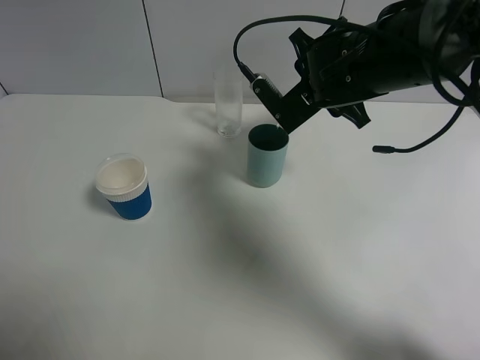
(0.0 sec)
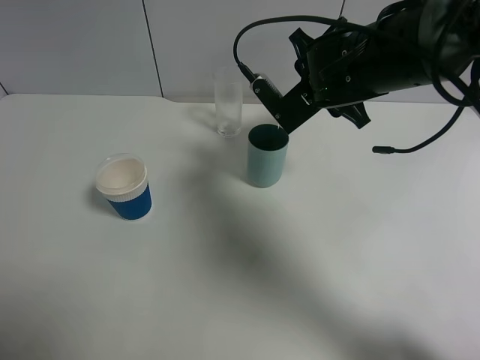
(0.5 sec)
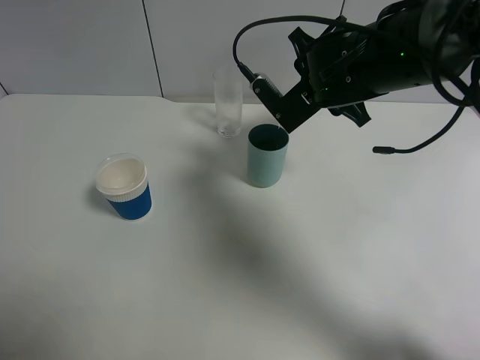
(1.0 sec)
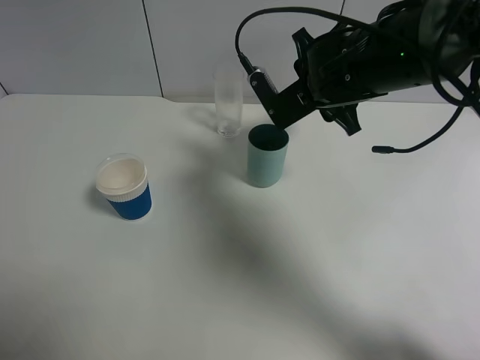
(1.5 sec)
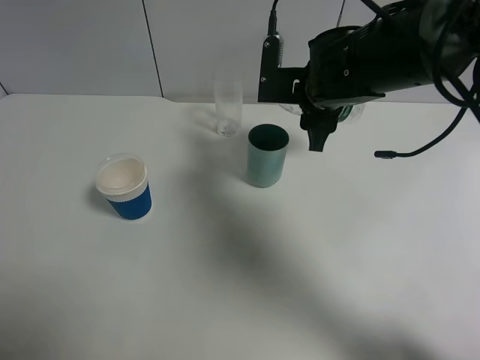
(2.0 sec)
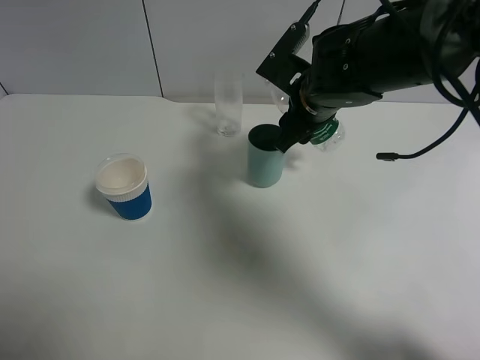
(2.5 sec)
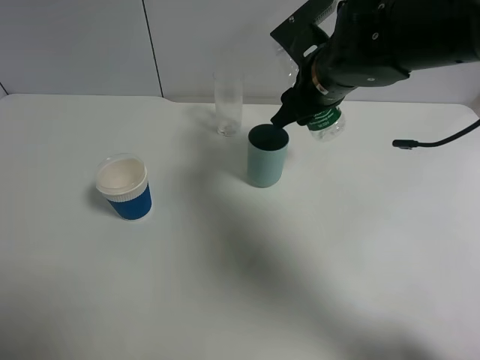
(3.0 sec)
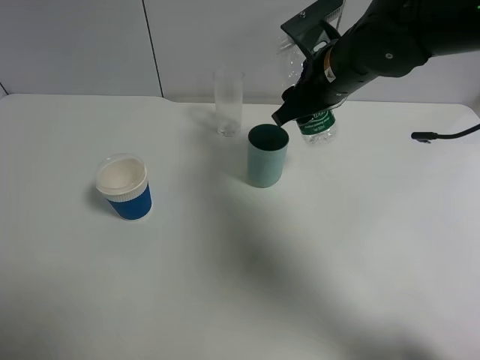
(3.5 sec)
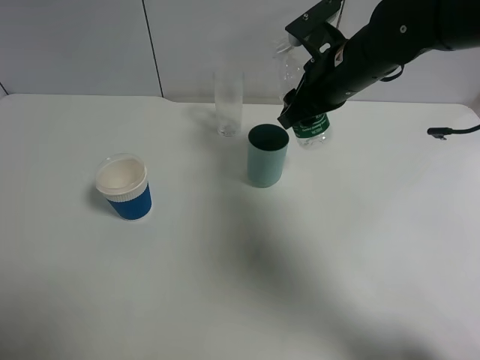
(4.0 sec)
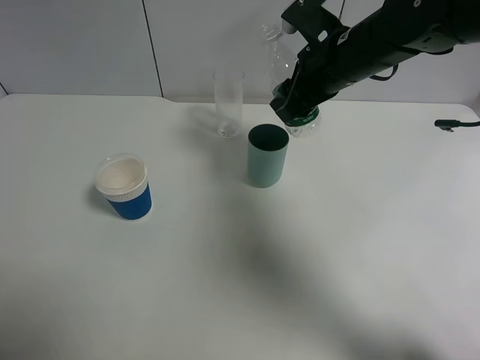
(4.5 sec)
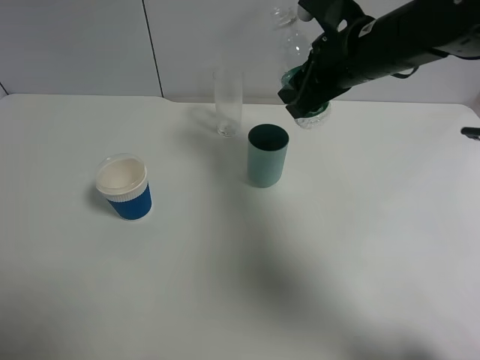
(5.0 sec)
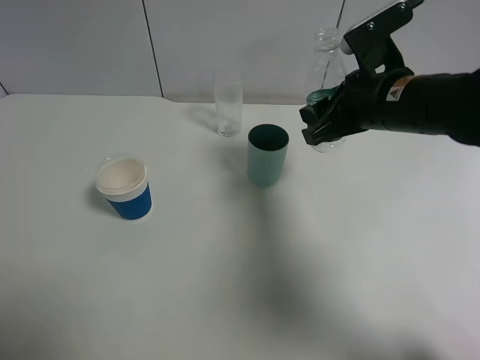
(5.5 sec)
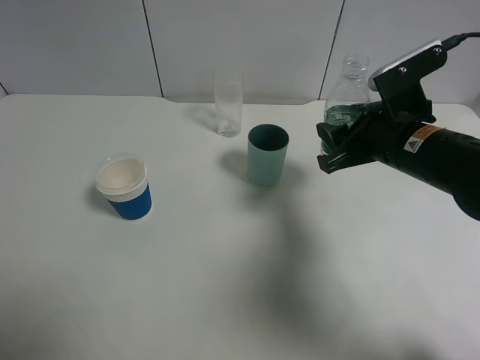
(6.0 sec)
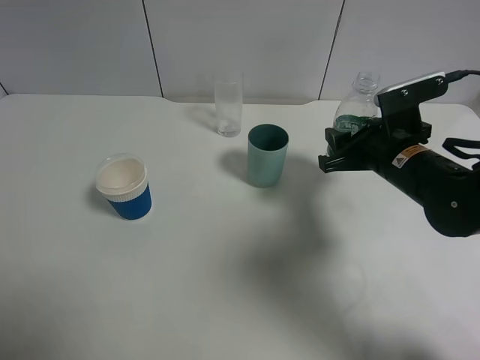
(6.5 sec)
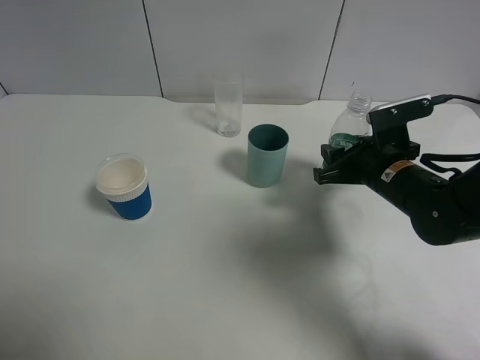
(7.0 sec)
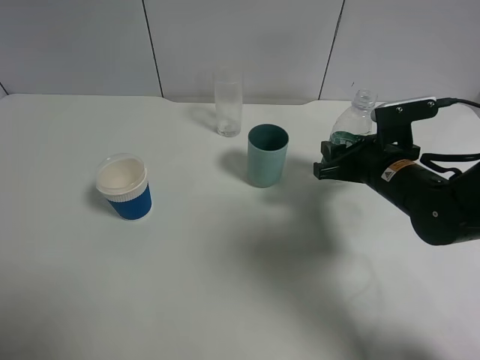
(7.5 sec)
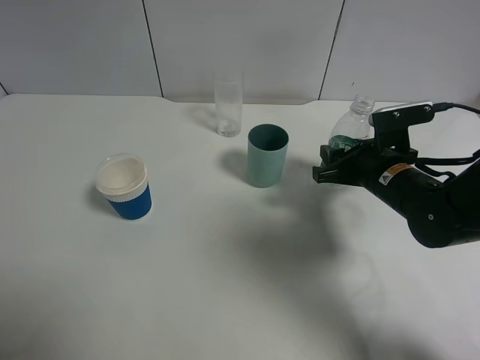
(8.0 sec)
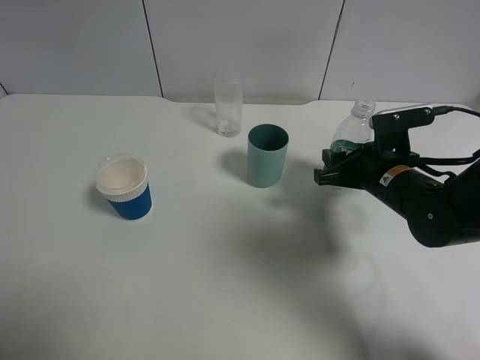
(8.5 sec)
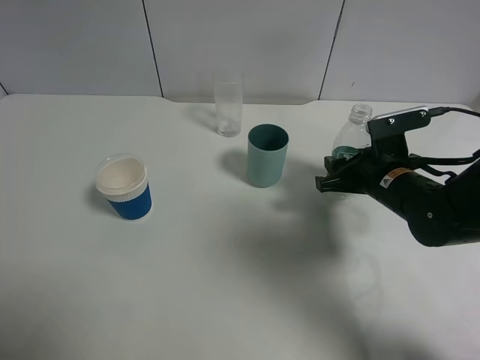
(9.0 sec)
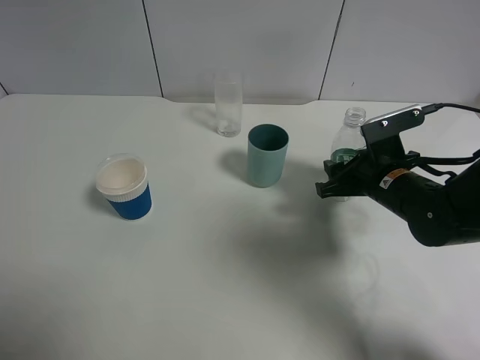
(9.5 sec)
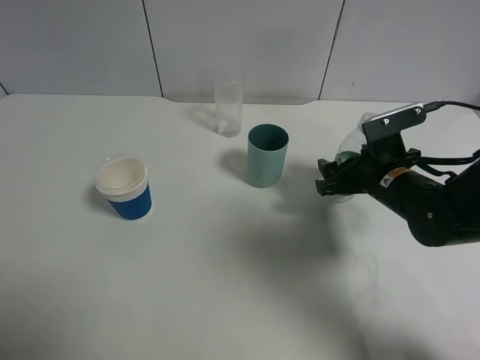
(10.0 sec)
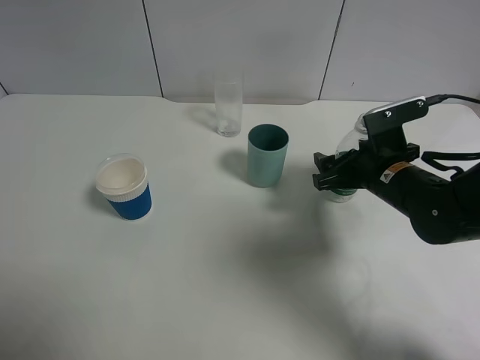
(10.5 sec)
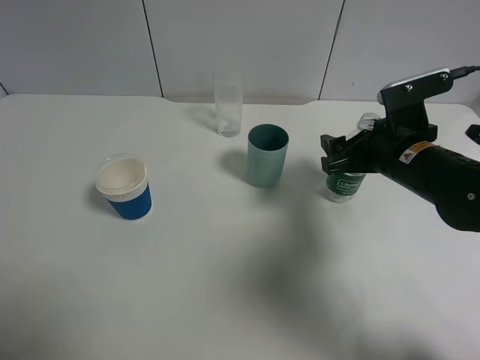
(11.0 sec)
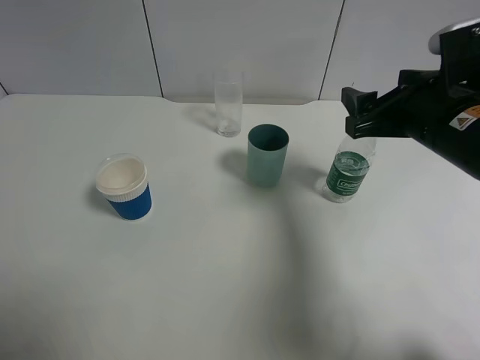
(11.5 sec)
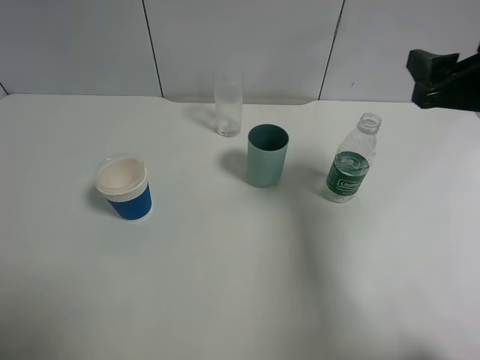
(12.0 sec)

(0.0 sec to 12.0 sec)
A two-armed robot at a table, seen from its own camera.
Task of the whole recording: use a gripper to hold the bottle of the drink and pour it into a random cup.
Step, 0.0 sec - 2.0 sec: Pour the mineral water into the cyan cup with the right gripper.
Step, 2.5 sec - 11.0 sec: Place the mineral water bottle on the table with the right gripper.
4.0 sec - 6.0 sec: The right gripper is displaced backward and to the right by some 10 cm.
6.0 sec - 8.0 sec: The right gripper travels downward by roughly 5 cm.
8.0 sec - 10.0 sec: The right gripper opens its fingers.
10.0 sec - 12.0 sec: The right gripper heads upward, covering some 15 cm.

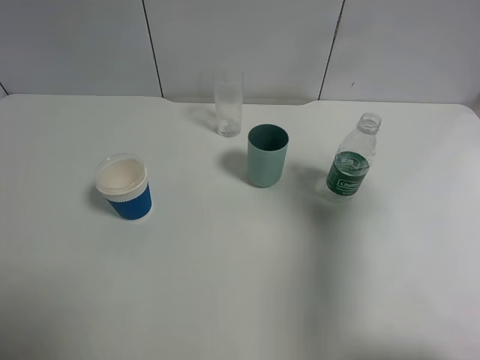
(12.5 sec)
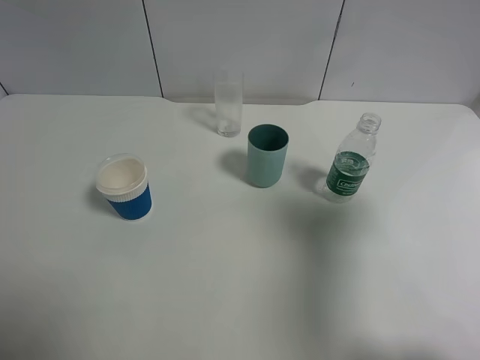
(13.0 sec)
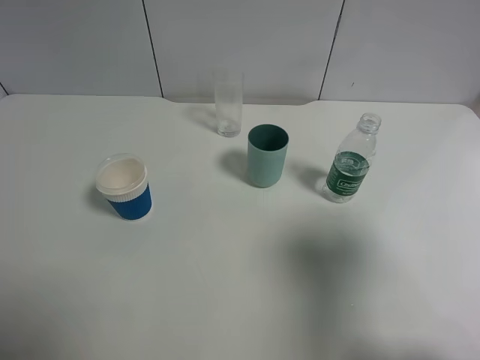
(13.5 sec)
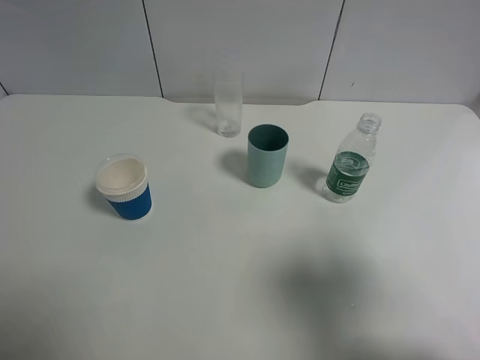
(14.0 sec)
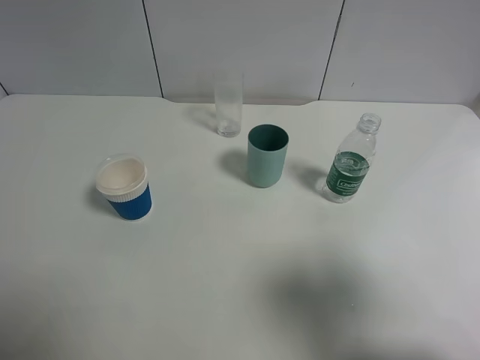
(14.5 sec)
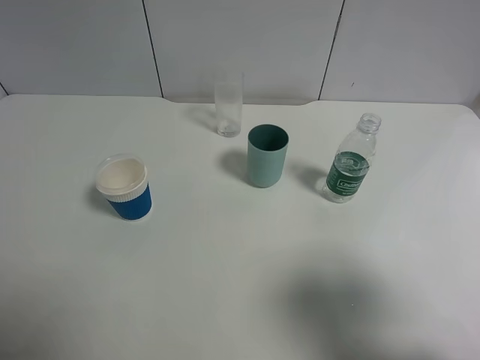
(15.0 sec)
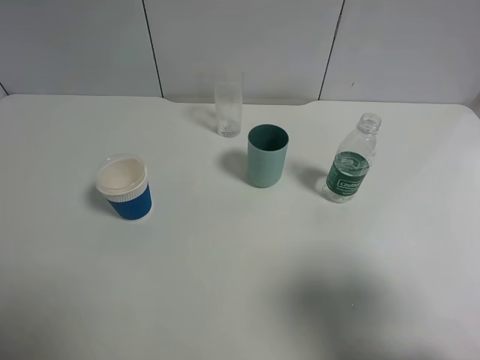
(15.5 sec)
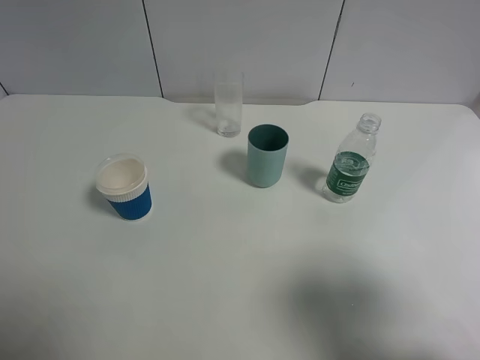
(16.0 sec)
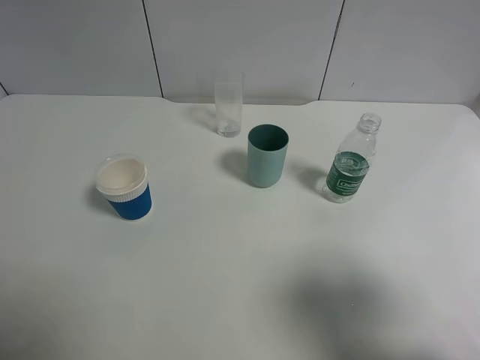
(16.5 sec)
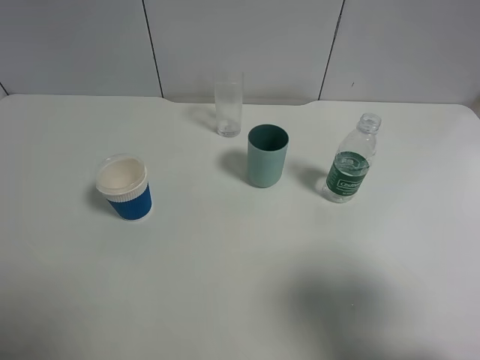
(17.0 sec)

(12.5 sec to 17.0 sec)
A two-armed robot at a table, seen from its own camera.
Task of the whole recording: use a gripper to hold the bottle of the drink and pour it into a random cup.
12.5 sec - 14.5 sec: The right gripper moves backward, about 15 cm.
